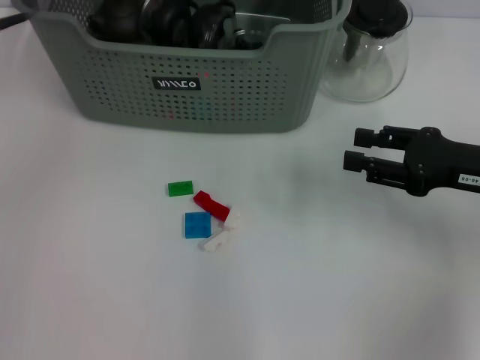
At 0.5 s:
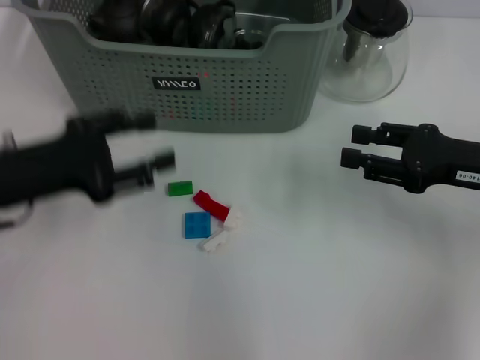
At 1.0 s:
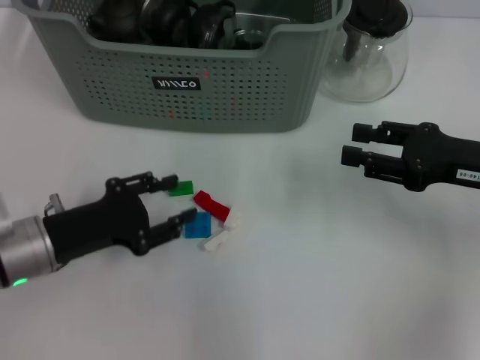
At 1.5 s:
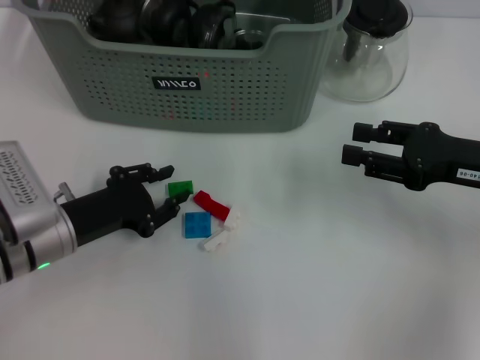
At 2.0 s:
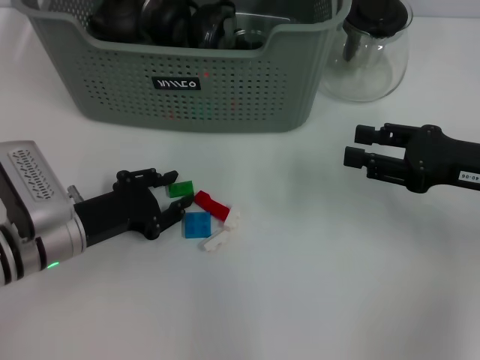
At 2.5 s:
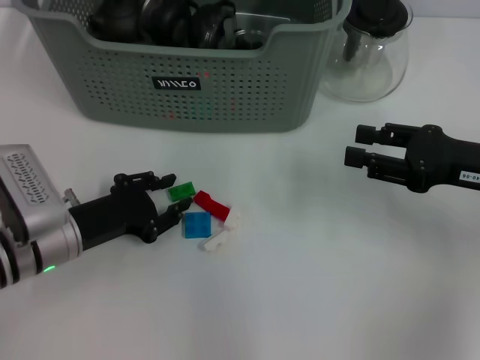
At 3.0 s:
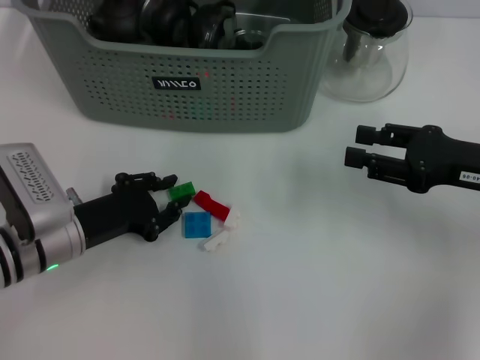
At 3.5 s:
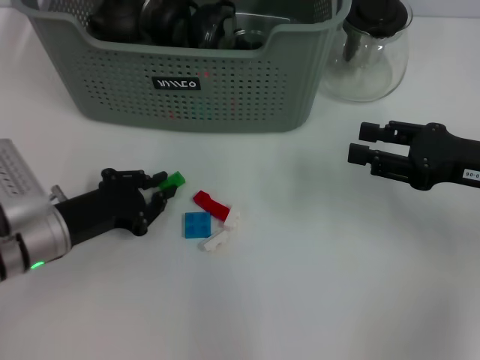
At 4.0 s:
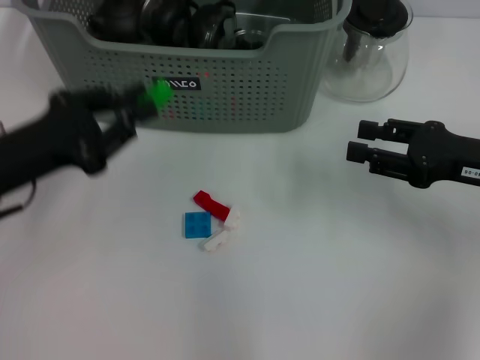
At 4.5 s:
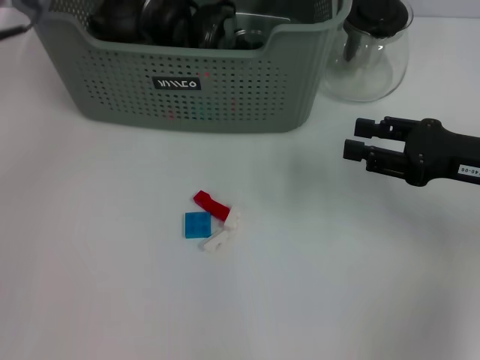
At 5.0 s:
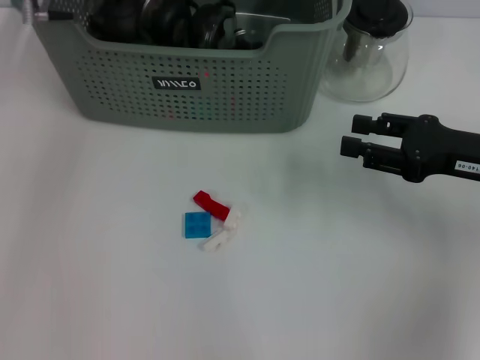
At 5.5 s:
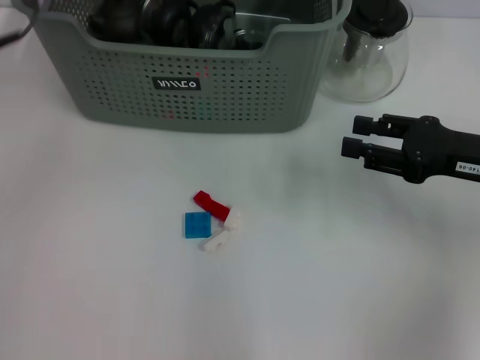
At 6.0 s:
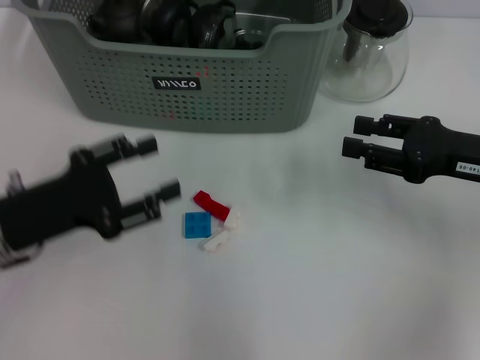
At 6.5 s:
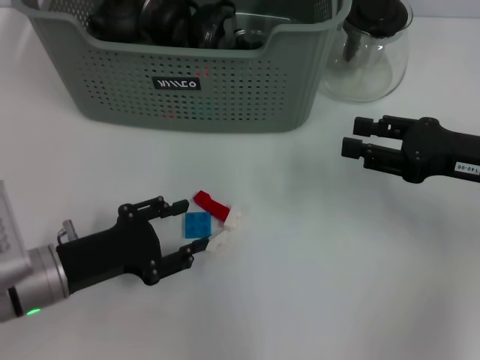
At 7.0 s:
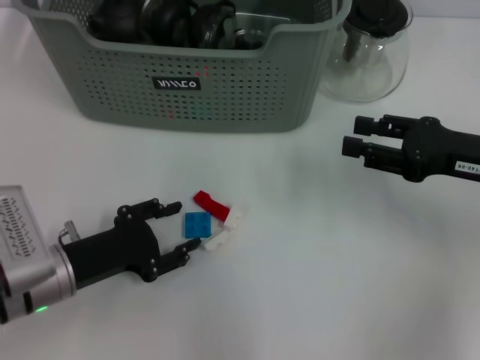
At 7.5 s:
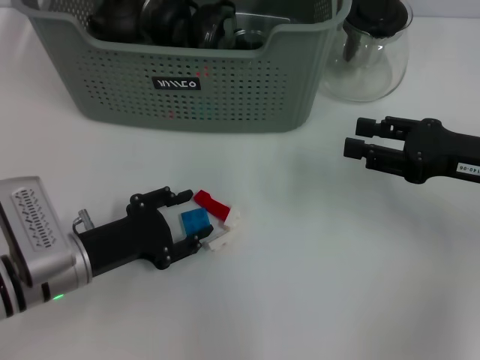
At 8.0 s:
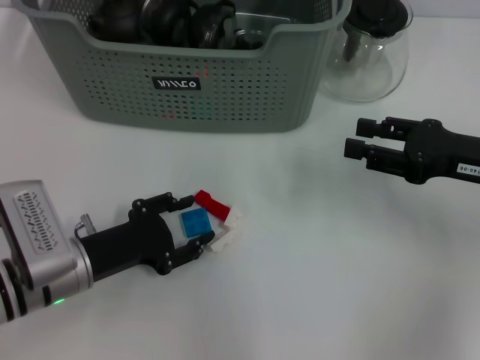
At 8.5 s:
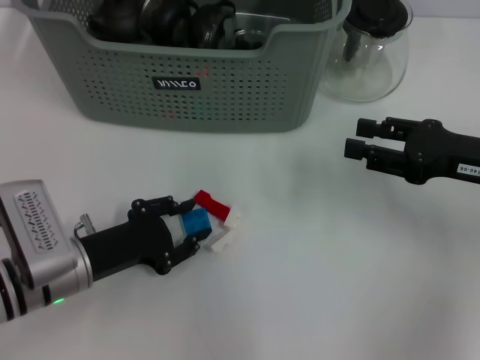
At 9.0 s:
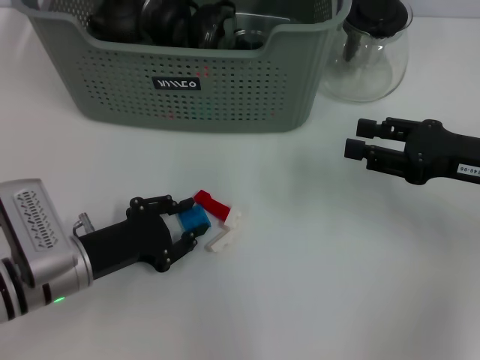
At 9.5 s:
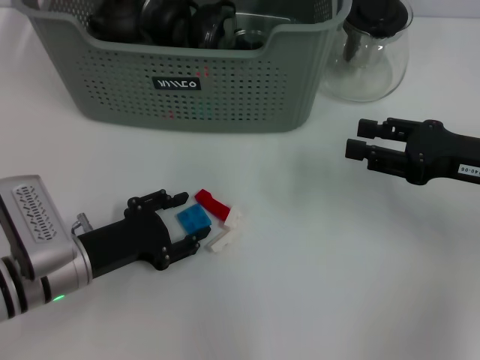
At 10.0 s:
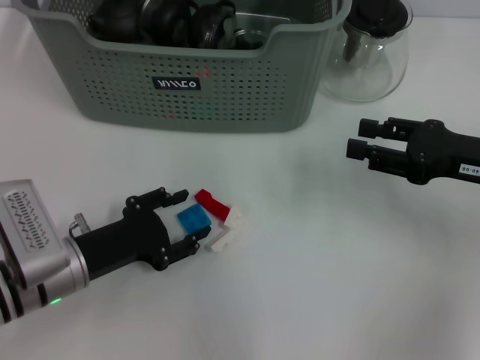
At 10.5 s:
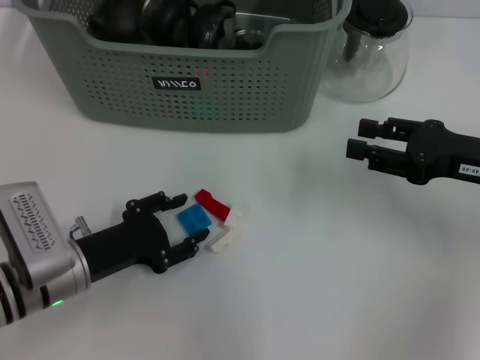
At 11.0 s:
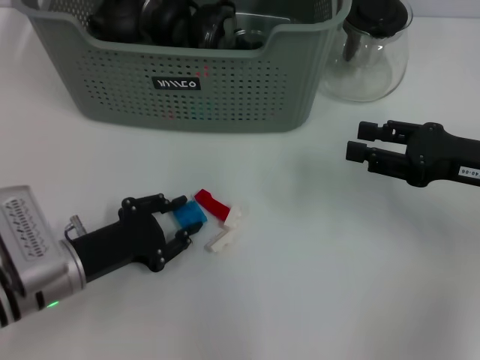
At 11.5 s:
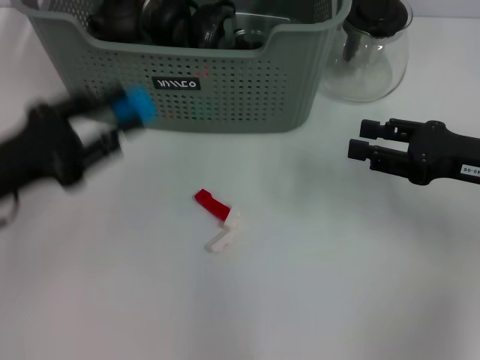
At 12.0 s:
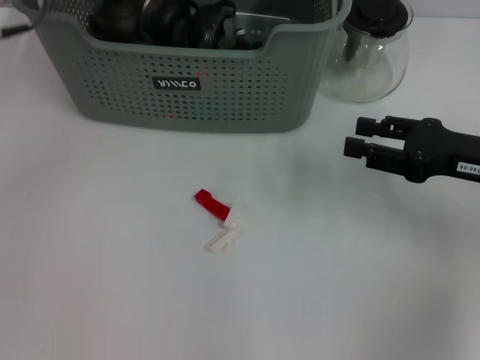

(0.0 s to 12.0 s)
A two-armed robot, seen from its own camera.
Task of the whole recording: pick up the teacup on the table and place it into the storage bin, pick up the block on the table and place it into the storage bin.
Step, 0.0 s - 3.0 s: Grasp the green block with left gripper.
Step, 3.5 s - 5.0 s: Place the green block in the storage box with left gripper.
Step, 5.5 s - 10.5 s: Grasp the dark blue block with left gripper.
0.0 s - 2.0 s: The left gripper heads downward and backward, covering roughly 25 cm.
2.0 s - 4.0 s: The left gripper shifts approximately 10 cm upward.
4.0 s - 6.0 s: The left gripper travels forward and back again, roughly 20 cm each way, and opens up.
6.0 s - 8.0 s: The left gripper travels downward by about 10 cm.
8.0 s - 10.0 s: Both grippers stay about where they are.
10.0 s - 12.0 s: The left gripper shifts approximately 30 cm upward and forward.

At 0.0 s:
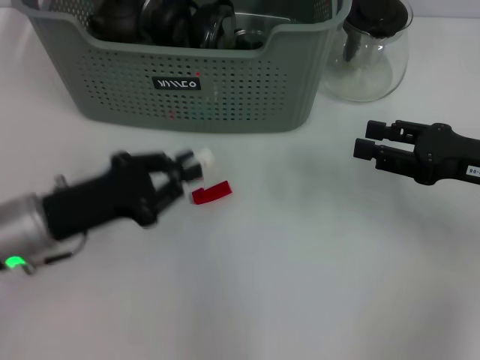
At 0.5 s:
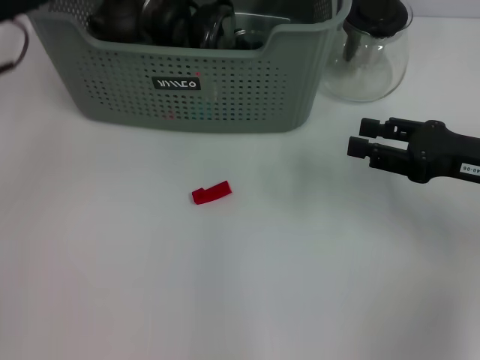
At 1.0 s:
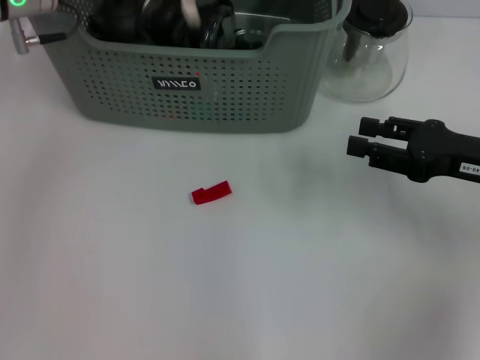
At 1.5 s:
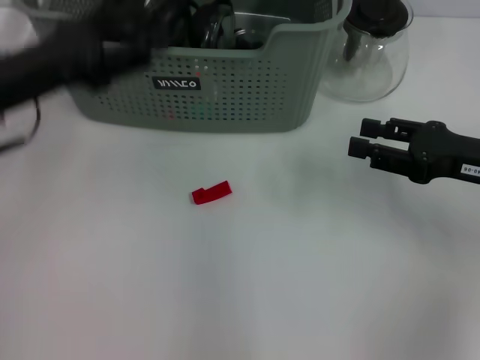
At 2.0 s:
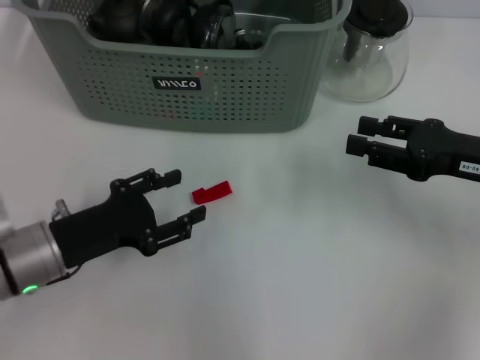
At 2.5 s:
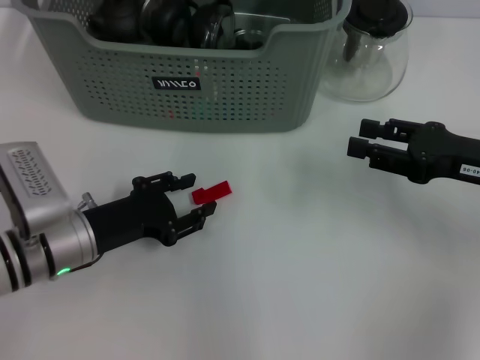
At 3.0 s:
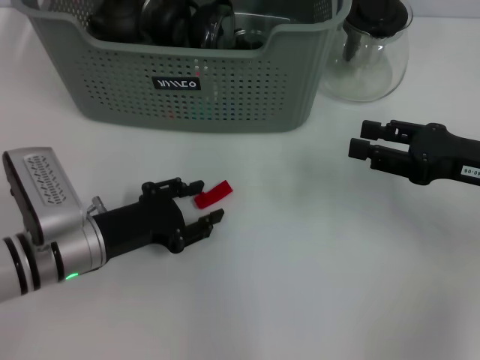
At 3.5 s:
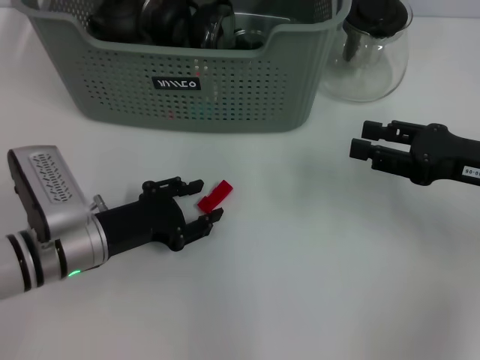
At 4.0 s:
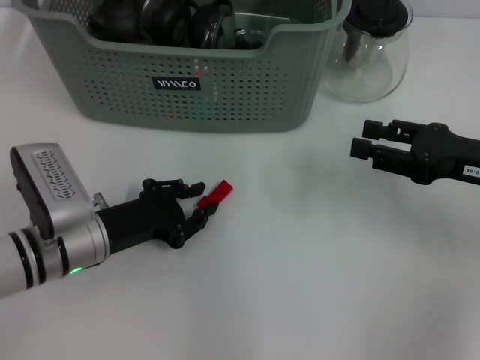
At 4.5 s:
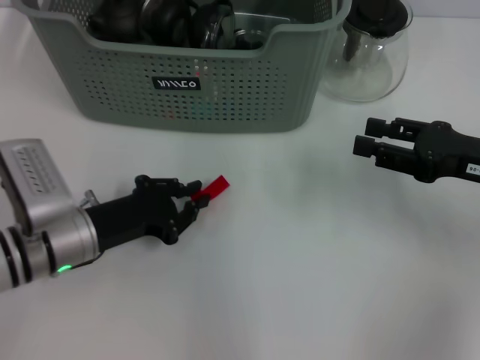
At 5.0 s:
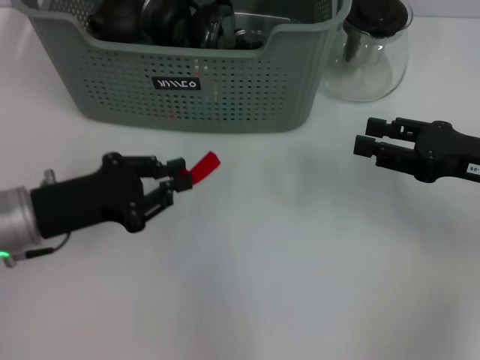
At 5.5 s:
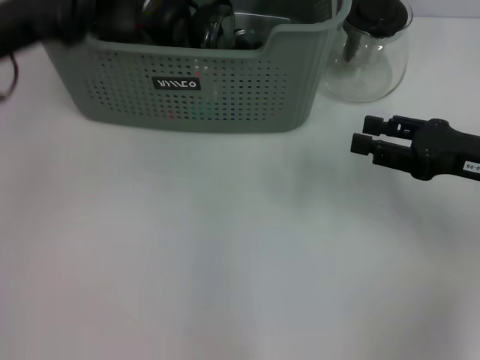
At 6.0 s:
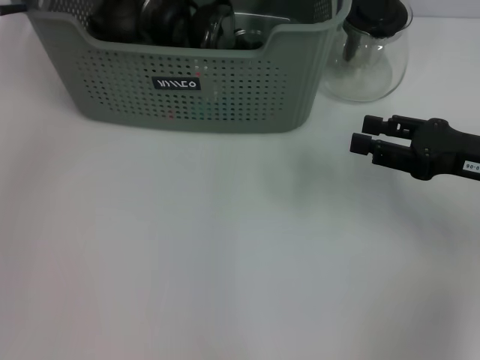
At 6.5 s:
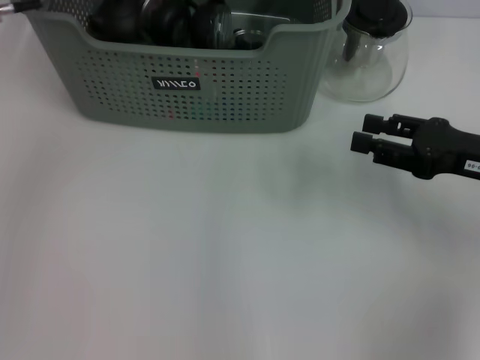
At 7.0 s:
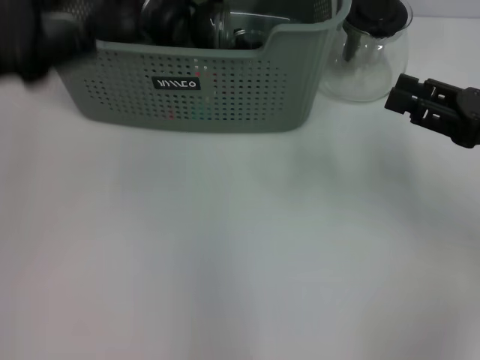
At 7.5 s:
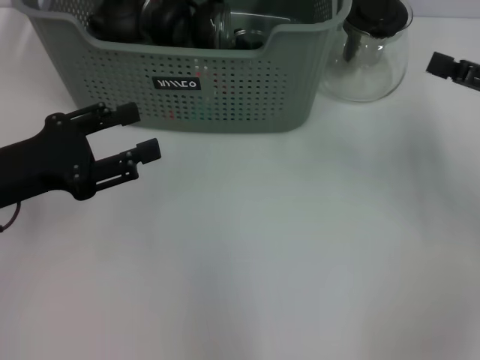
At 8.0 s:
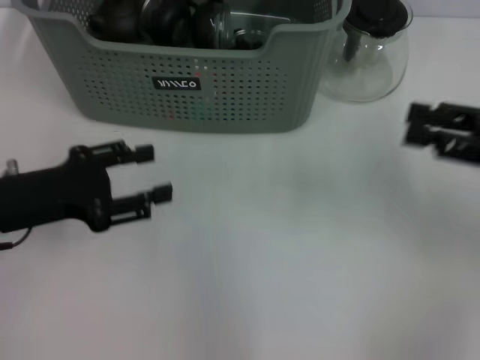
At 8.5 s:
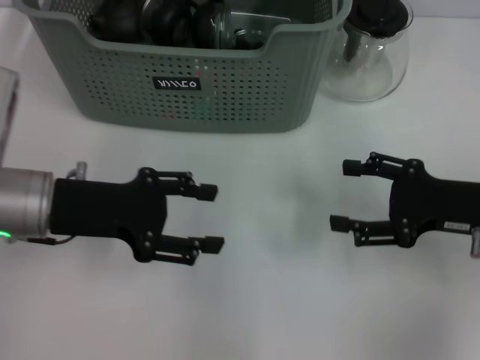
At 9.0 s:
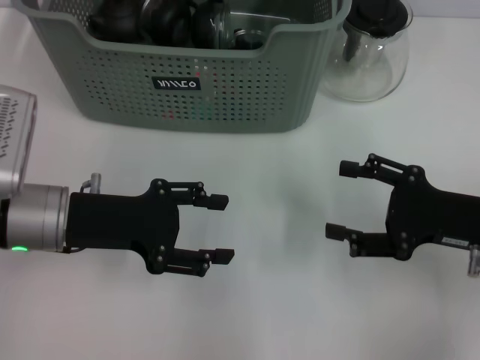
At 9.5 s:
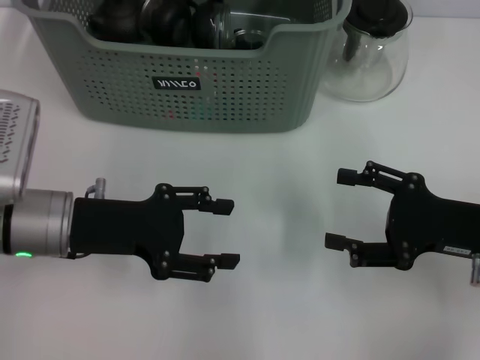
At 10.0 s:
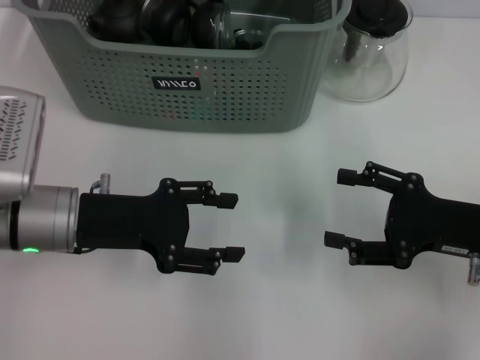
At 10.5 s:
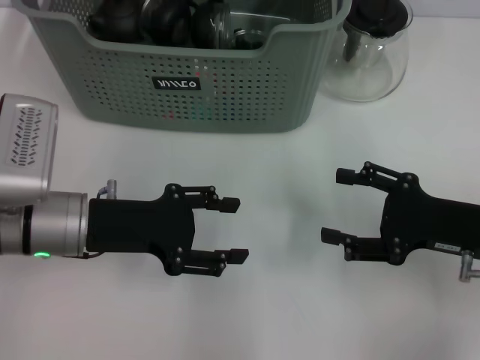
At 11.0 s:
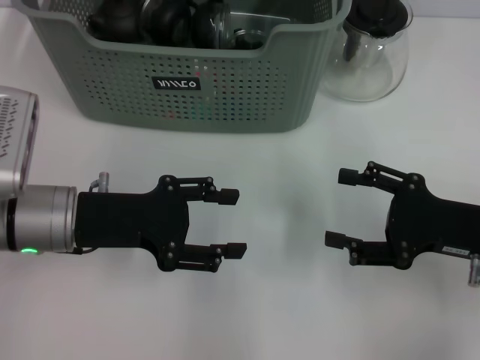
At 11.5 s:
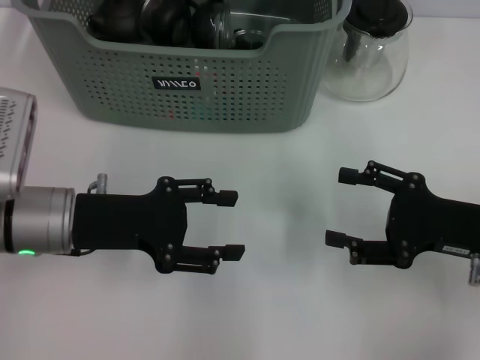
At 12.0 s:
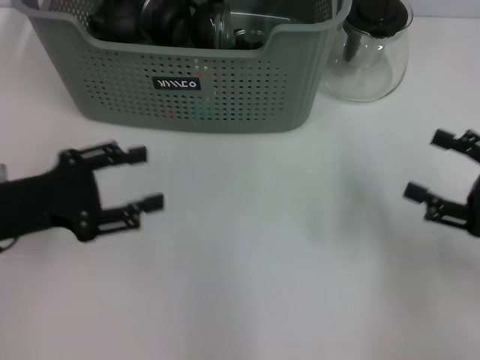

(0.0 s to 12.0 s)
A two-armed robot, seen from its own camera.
Task of the whole recording: pick up the teacup on the table and place it into the storage bin, pick up the block on the table and place it into the storage bin.
Step, 0.0 s - 1.0 s: Place the white block in the storage box with left gripper.
Step, 1.5 s - 4.0 s: Grasp the red block with left gripper.
Step, 4.5 s - 6.0 s: Place the red block in the storage box with left gripper.
0.0 s - 2.0 s: The left gripper travels forward and back again, roughly 15 cm each way, and opens up.
2.0 s - 4.0 s: The grippers move only a little.
4.0 s - 6.0 s: The left gripper moves upward and forward, about 25 cm, and closes up.
6.0 s - 8.0 s: The right gripper shifts by roughly 5 cm, while the left gripper heads backward and downward, covering approximately 20 cm, and opens.
8.0 s - 10.0 s: The left gripper is displaced to the right by about 5 cm. Meanwhile the right gripper goes some 10 cm downward and to the left, and opens its fingers.
10.0 s - 12.0 s: The right gripper goes approximately 5 cm to the right, while the left gripper goes roughly 5 cm to the left.

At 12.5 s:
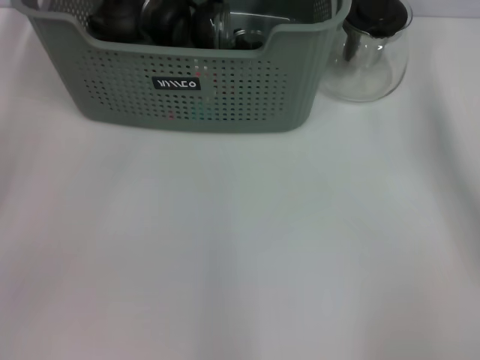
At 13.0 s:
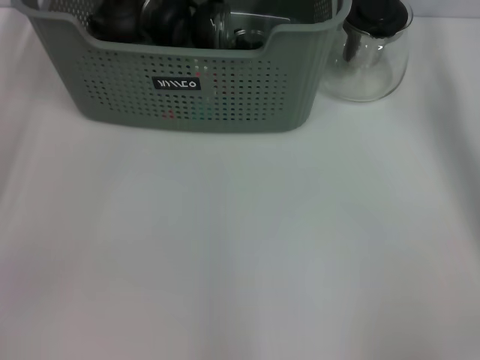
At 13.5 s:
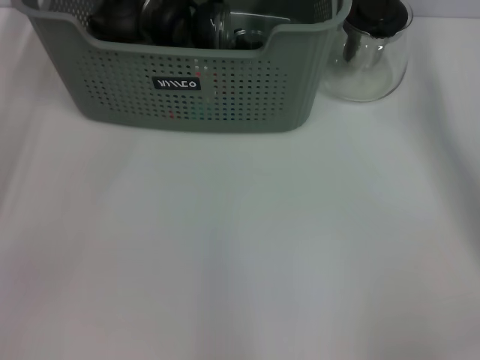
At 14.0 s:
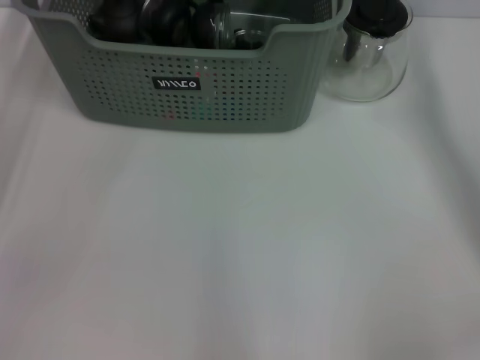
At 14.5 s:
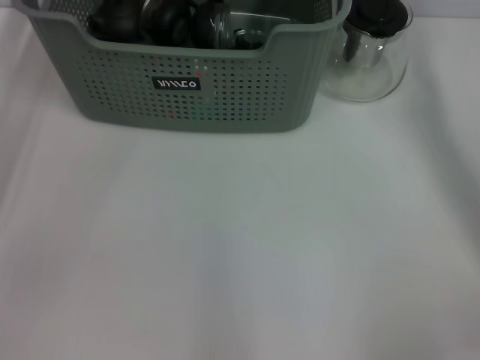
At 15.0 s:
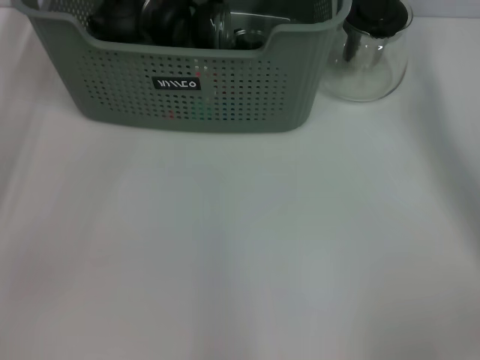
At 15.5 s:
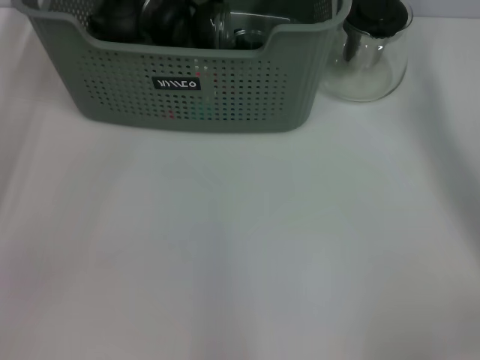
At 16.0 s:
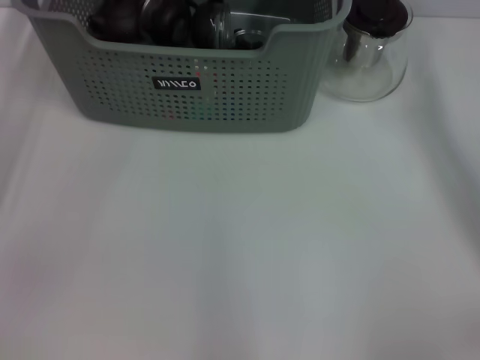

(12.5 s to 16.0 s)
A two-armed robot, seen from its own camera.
Task of the whole recording: pick up the teacup on the table and place it into the storage bin, pick up the block on the table and place it into the storage bin.
12.5 s - 14.5 s: The right gripper heads forward, covering roughly 5 cm.
14.5 s - 16.0 s: Both grippers stay about where they are.
